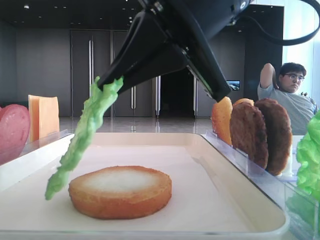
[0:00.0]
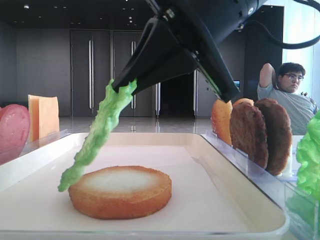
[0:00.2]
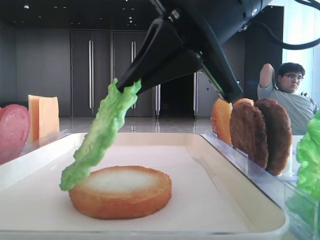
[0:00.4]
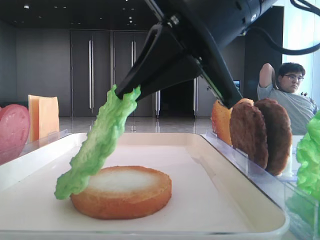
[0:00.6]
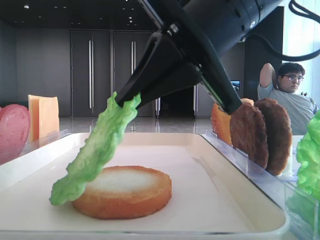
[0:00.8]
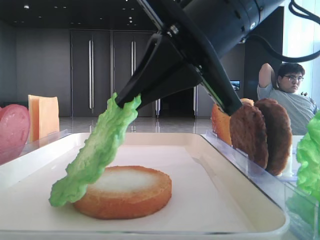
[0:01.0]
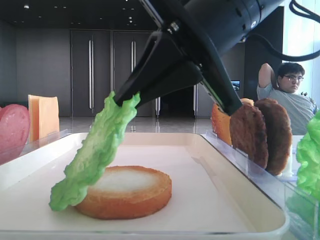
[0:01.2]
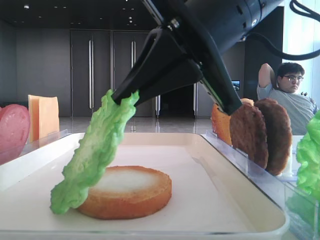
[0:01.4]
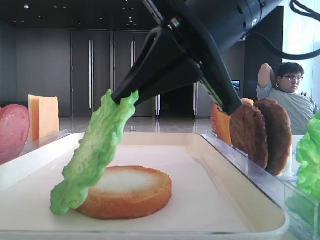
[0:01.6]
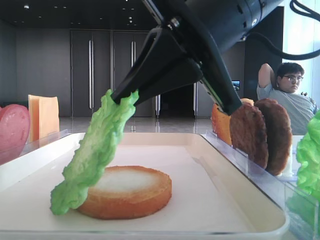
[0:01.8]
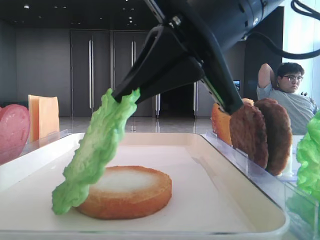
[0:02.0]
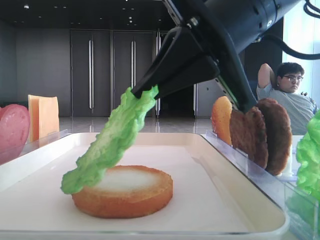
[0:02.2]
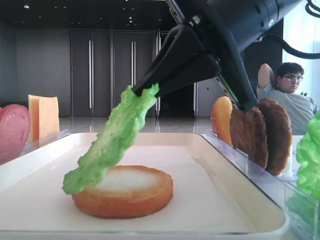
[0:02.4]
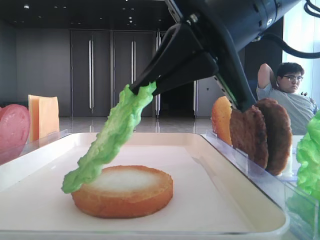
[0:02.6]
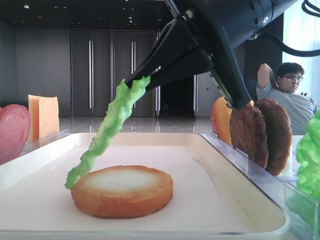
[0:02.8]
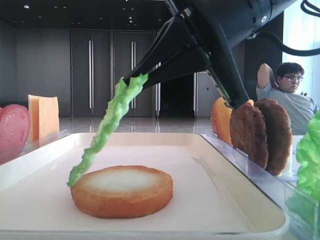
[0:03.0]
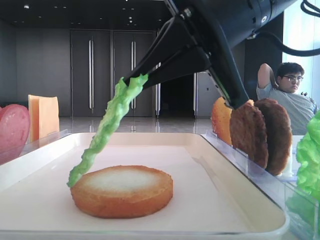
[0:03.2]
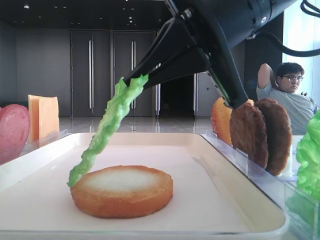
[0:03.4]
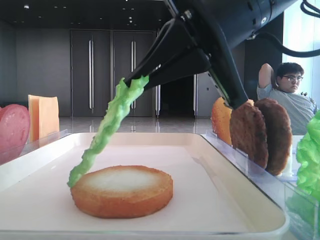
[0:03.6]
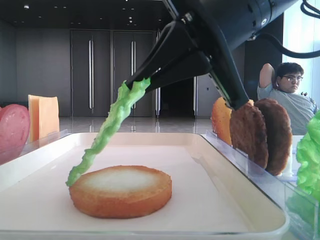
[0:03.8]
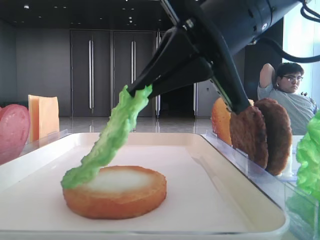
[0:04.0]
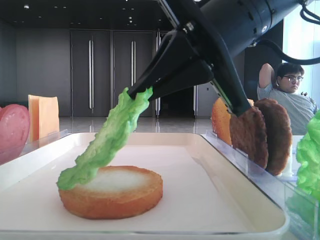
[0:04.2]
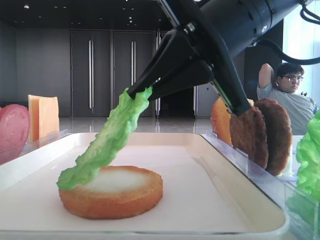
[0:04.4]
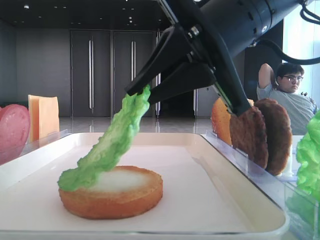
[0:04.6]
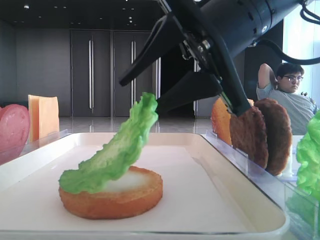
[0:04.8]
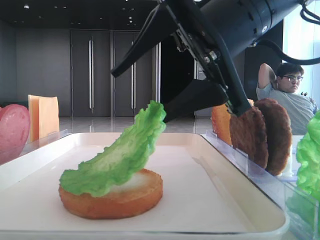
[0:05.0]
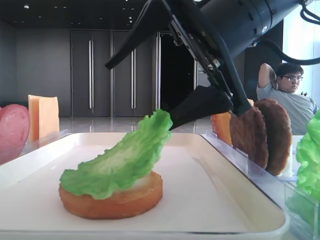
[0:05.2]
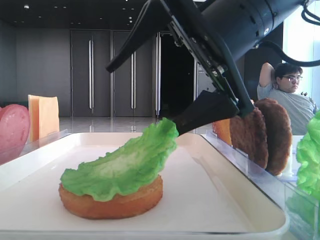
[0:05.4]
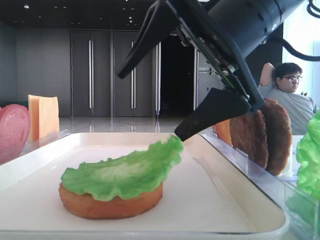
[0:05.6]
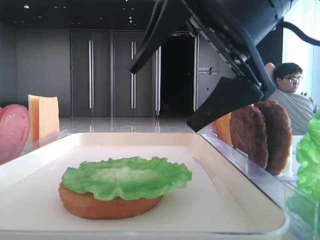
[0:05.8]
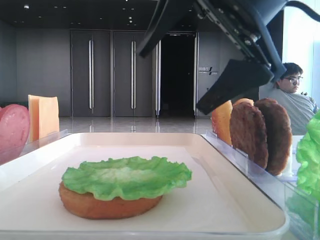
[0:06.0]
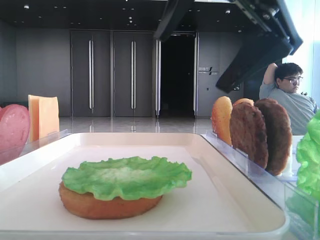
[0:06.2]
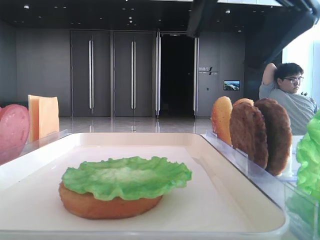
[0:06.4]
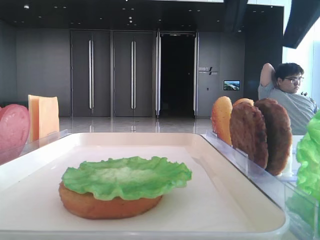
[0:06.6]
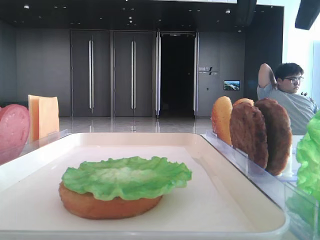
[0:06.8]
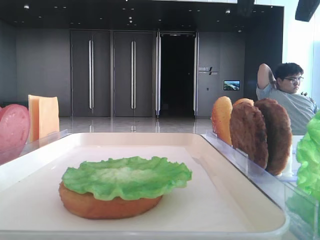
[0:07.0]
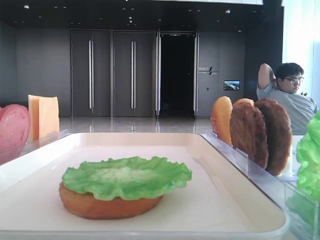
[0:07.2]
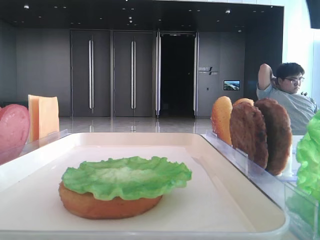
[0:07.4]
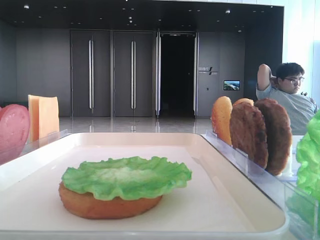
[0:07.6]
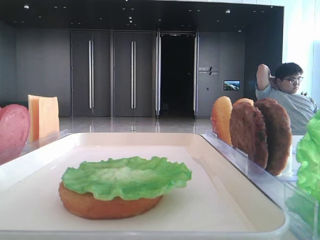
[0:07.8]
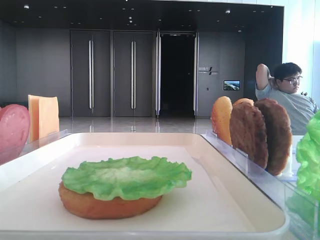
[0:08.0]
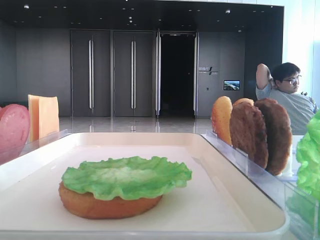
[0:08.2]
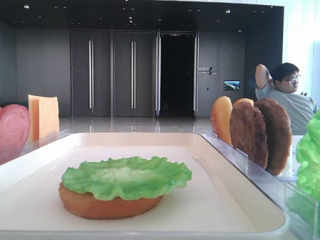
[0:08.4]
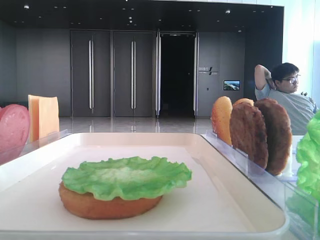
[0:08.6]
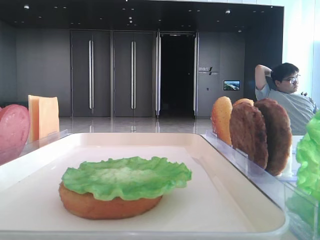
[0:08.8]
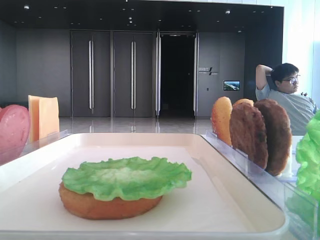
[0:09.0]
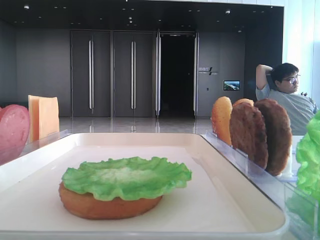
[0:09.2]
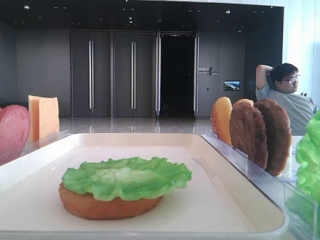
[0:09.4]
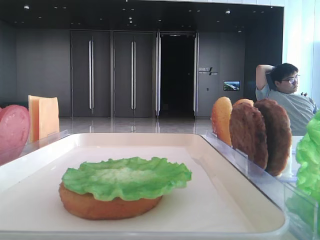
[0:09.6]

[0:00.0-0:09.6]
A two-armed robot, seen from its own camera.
Step, 0:00.0 to 0:05.4: Place the lettuce leaf on the bottom bread with the right hand.
0:00.0 to 0:03.2: The grippers make only small movements.
0:03.2 to 0:04.8: The right gripper opens its fingers.
0:04.8 to 0:06.4: The right gripper is displaced upward by some 10 cm, and opens.
0:06.4 to 0:08.0: The right gripper goes some 20 cm to the right.
0:08.0 to 0:09.6: The right gripper is displaced backward and upward by roughly 40 cm.

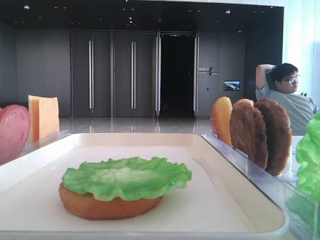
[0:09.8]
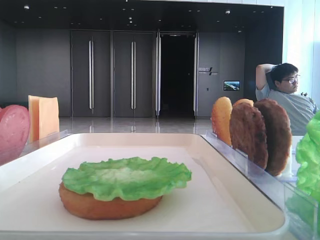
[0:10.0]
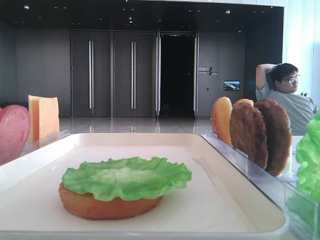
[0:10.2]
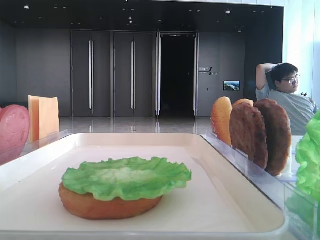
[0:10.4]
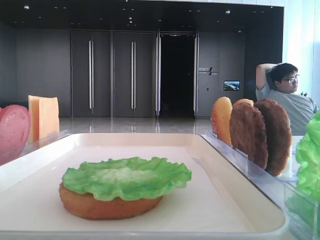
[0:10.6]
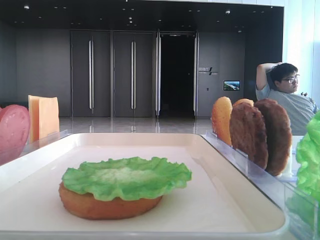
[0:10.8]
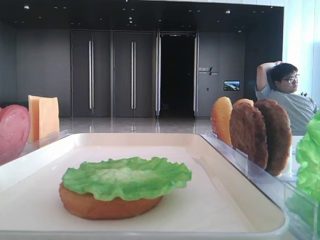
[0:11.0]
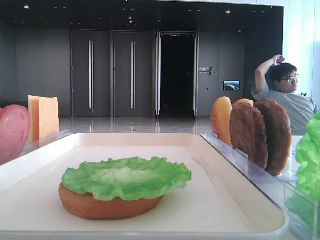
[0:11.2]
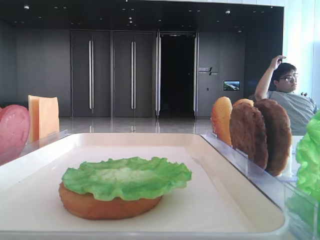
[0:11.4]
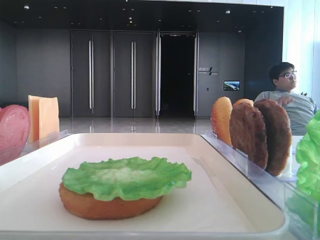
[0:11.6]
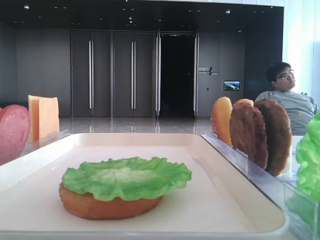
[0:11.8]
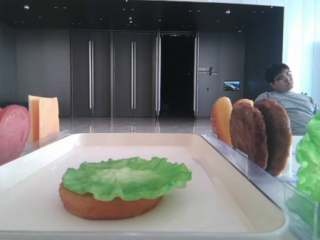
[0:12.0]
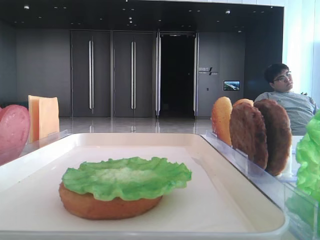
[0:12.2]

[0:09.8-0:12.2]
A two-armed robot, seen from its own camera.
0:11.0 to 0:12.2: The two grippers keep their place.

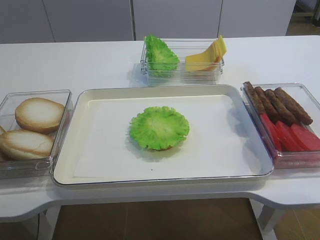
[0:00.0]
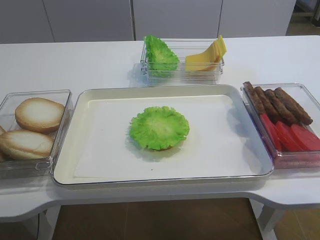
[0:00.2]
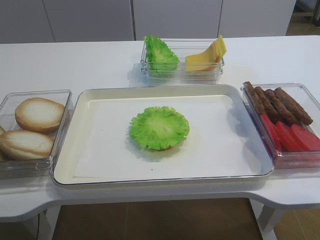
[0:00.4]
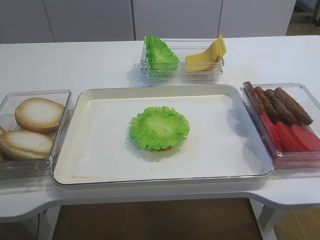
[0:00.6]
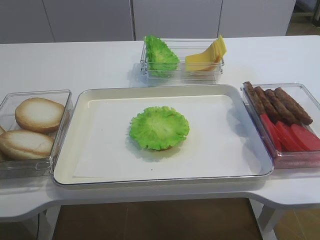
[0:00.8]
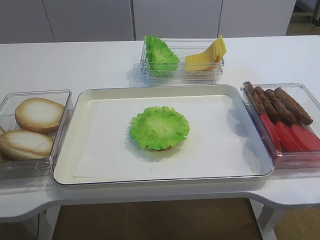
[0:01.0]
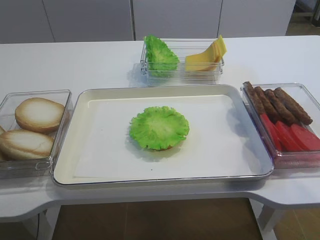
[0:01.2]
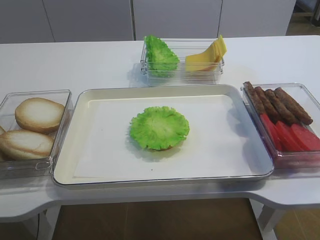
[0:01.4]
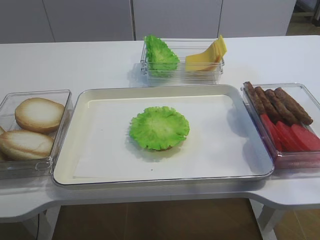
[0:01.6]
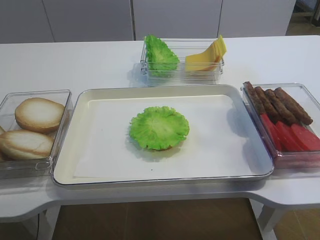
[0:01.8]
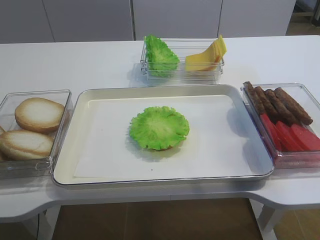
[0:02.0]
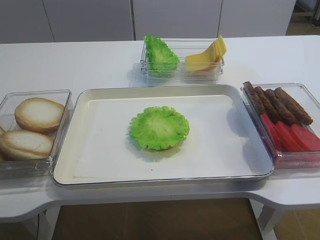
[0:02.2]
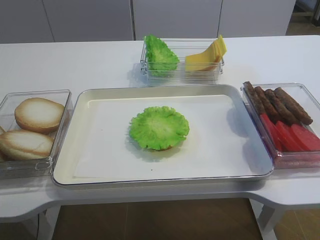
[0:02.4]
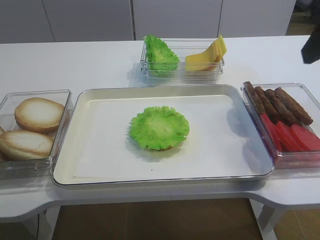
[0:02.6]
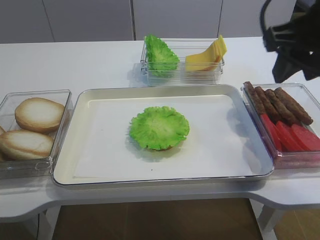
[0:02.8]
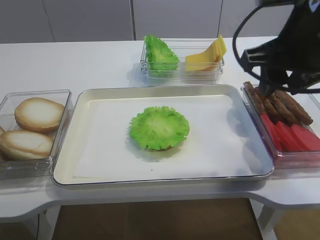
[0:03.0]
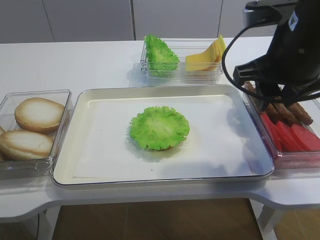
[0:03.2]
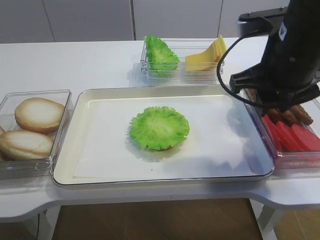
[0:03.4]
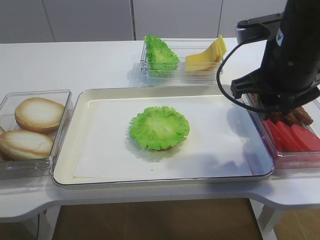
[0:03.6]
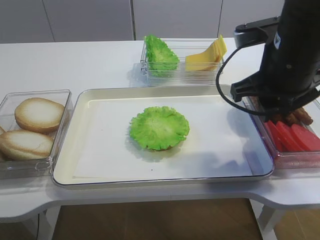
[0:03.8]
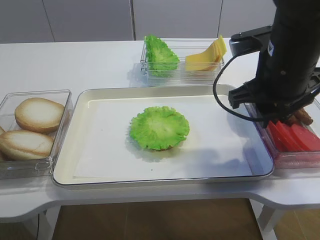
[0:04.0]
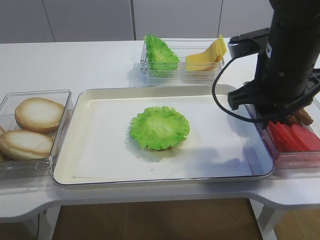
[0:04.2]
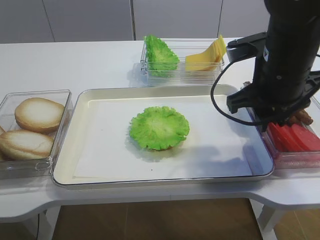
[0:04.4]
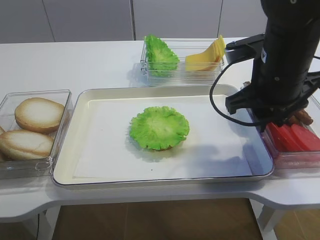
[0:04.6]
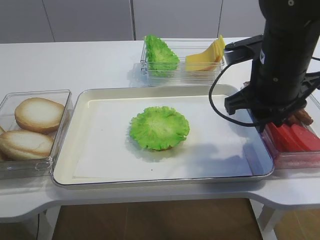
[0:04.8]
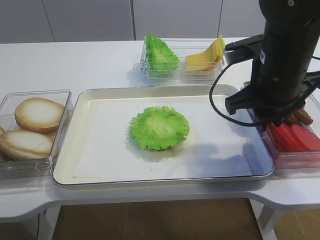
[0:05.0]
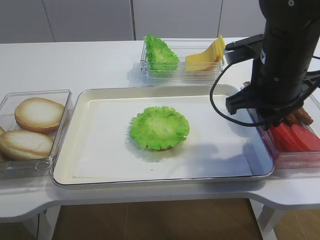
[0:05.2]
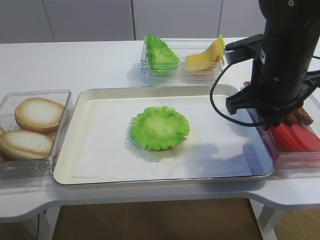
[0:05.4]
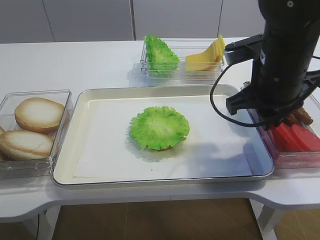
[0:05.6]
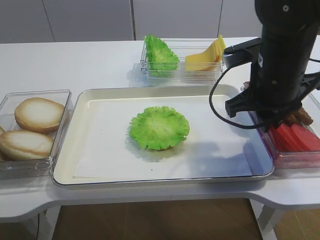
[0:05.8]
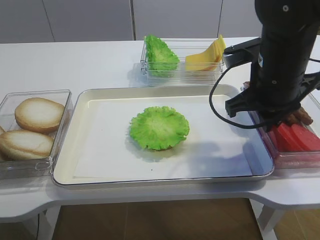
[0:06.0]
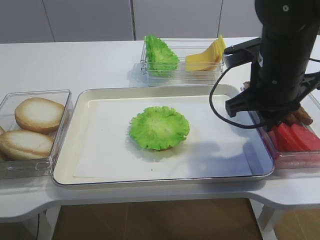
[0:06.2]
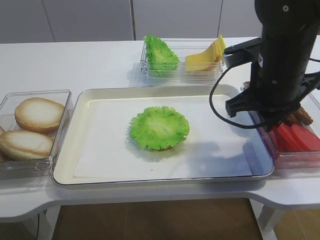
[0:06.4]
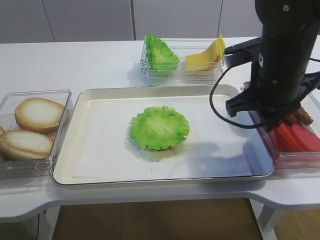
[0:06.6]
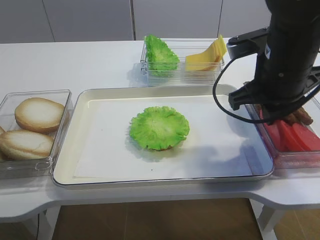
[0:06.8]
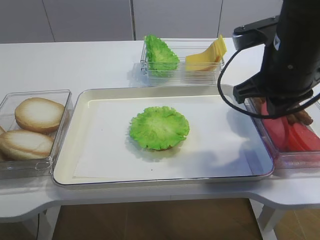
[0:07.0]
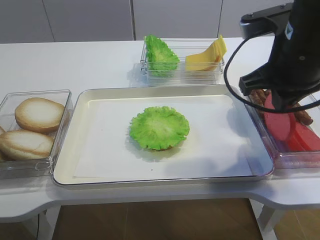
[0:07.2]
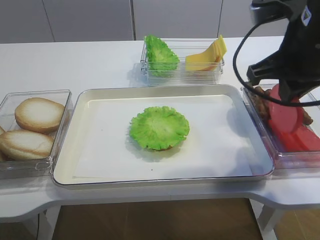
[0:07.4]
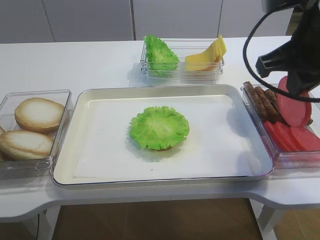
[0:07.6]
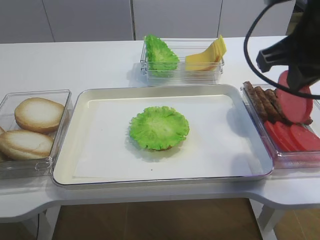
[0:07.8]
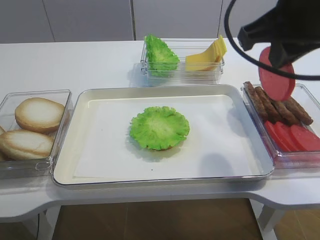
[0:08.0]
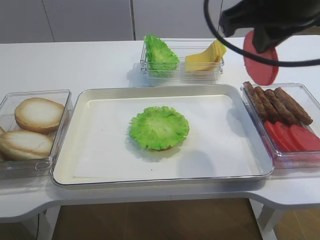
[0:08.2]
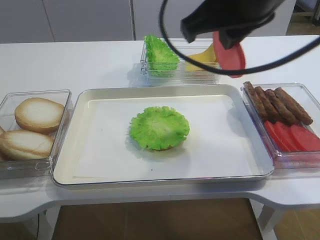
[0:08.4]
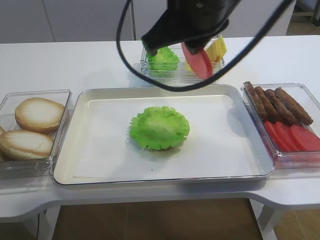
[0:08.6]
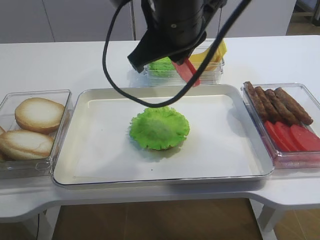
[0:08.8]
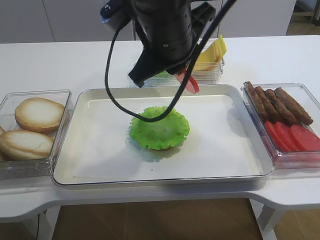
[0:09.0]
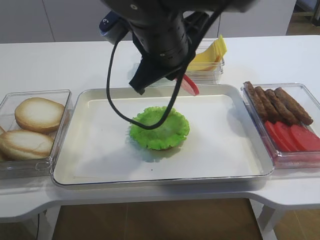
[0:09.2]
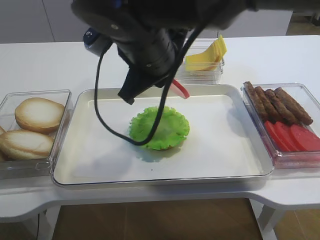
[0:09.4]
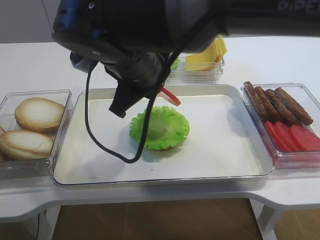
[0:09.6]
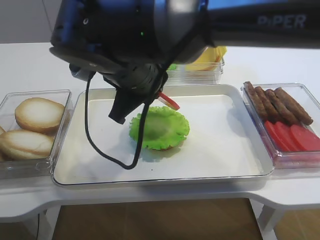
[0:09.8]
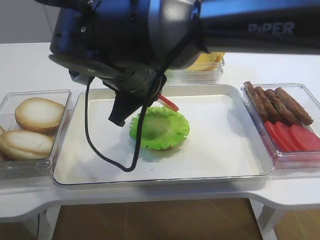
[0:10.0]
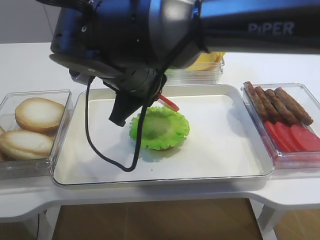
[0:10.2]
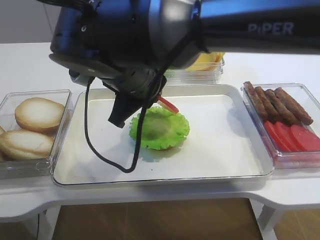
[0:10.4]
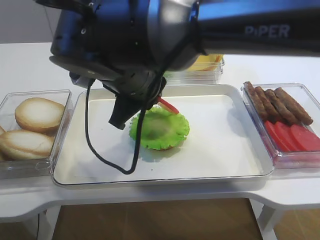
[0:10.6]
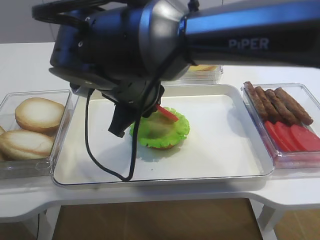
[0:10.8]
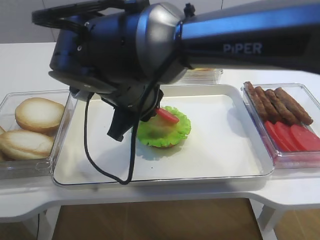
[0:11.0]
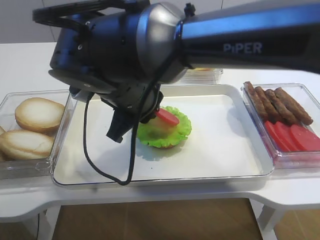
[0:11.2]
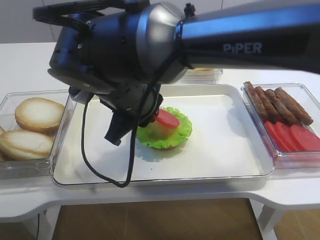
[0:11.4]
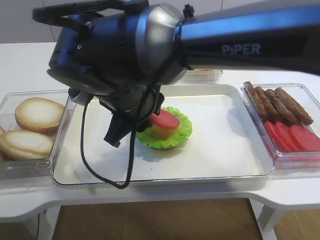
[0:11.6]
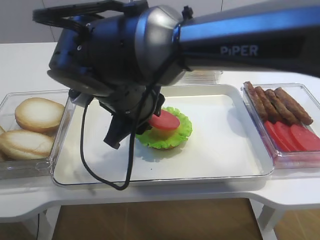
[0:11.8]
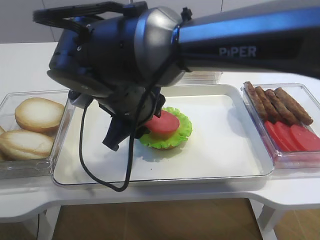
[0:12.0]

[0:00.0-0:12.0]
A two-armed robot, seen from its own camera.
Step, 0:00.0 to 0:07.4: Pick up the tomato slice with the right gripper.
0:01.6 to 0:03.0: The right gripper heads forward and to the left, covering about 20 cm.
0:03.0 to 0:04.4: The right gripper goes approximately 5 cm downward.
0:04.4 to 0:06.0: The right gripper closes up.
0:06.0 to 0:07.6: The right gripper travels upward by approximately 10 cm.
0:07.6 to 0:09.0: The right gripper is displaced to the left by about 15 cm.
0:09.0 to 0:10.4: The right gripper goes about 5 cm downward.
0:10.4 to 0:12.0: The right gripper opens its fingers.
